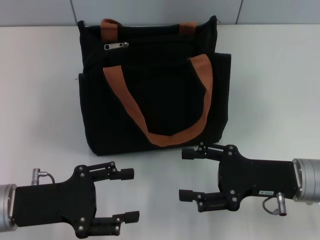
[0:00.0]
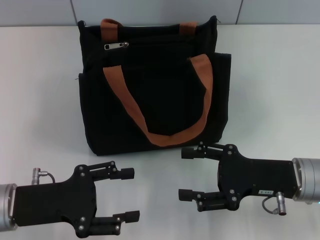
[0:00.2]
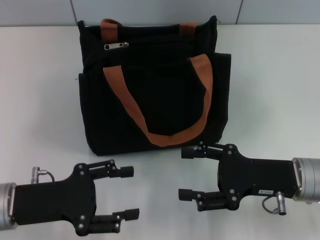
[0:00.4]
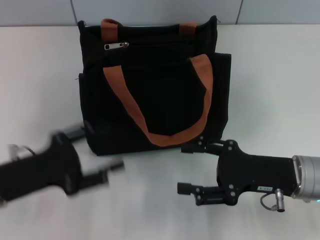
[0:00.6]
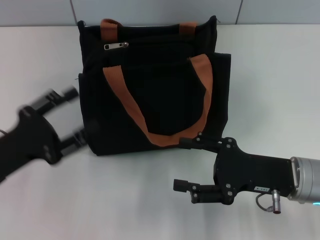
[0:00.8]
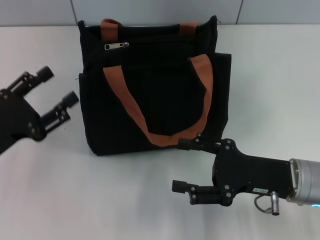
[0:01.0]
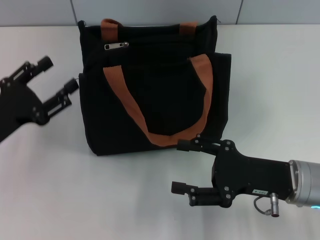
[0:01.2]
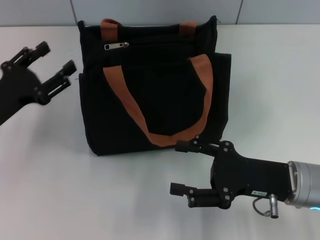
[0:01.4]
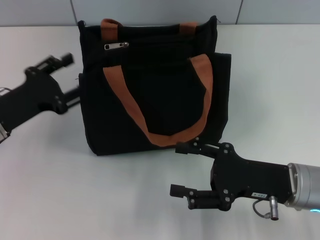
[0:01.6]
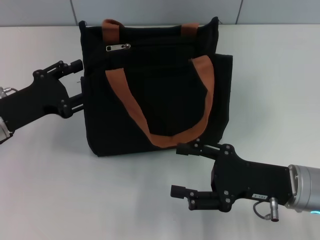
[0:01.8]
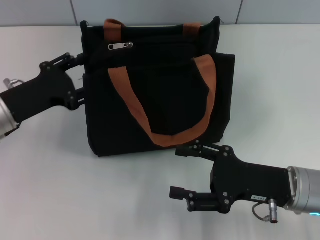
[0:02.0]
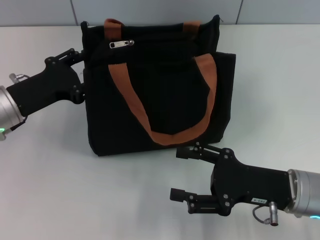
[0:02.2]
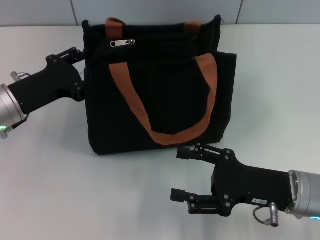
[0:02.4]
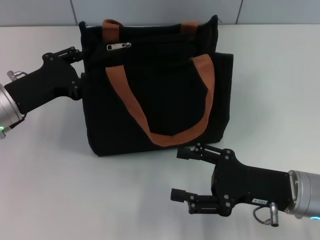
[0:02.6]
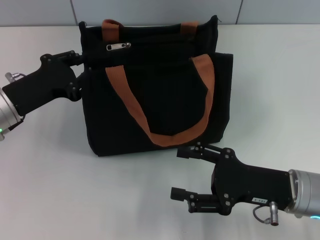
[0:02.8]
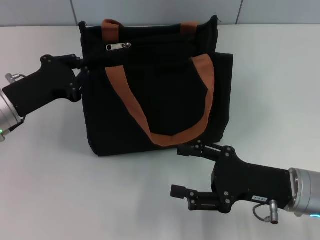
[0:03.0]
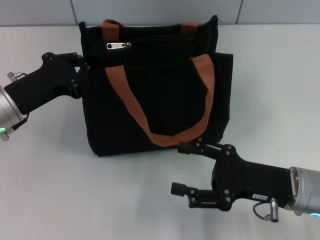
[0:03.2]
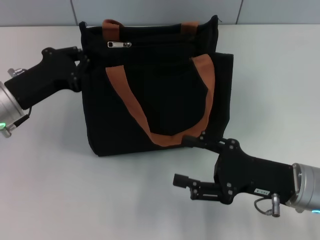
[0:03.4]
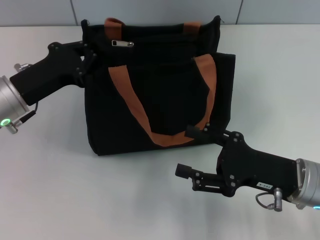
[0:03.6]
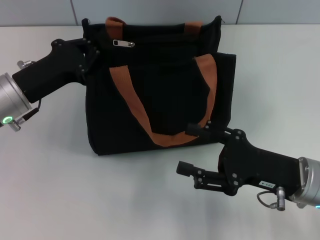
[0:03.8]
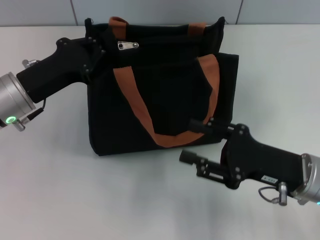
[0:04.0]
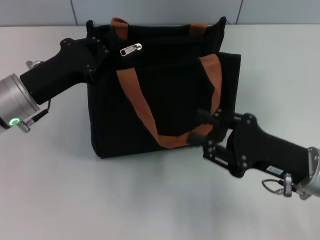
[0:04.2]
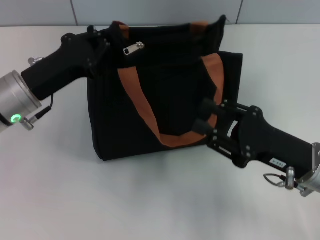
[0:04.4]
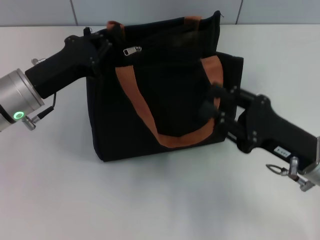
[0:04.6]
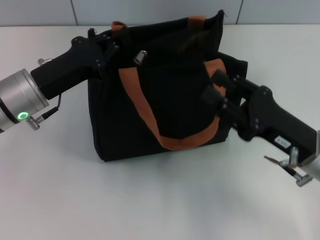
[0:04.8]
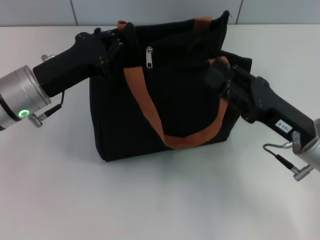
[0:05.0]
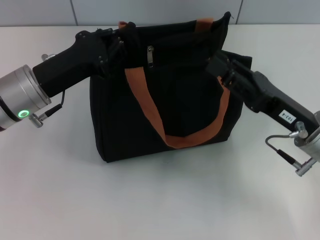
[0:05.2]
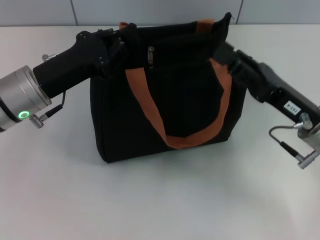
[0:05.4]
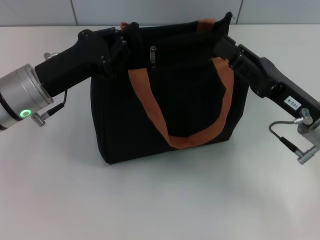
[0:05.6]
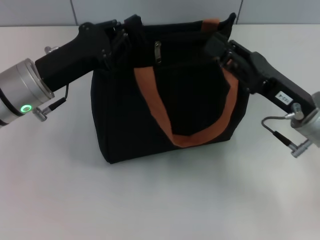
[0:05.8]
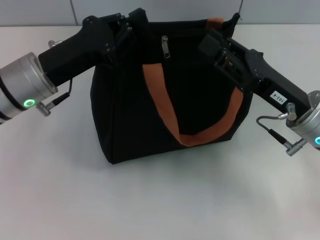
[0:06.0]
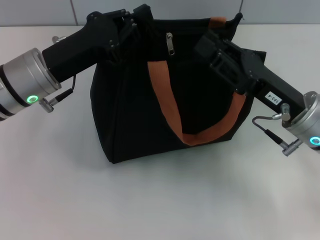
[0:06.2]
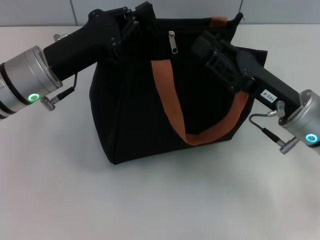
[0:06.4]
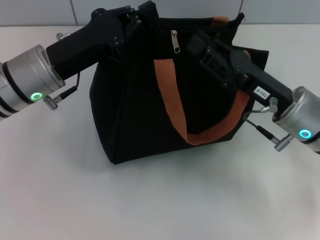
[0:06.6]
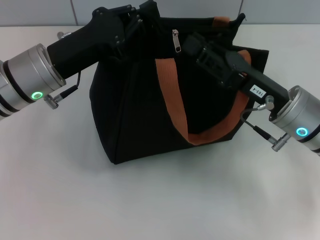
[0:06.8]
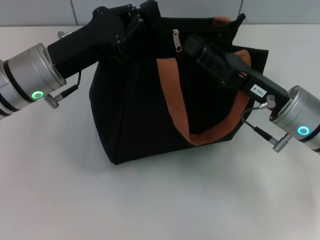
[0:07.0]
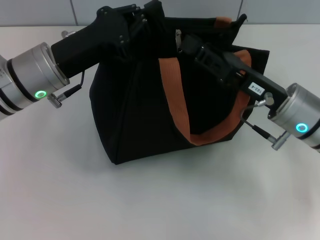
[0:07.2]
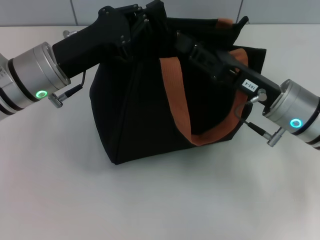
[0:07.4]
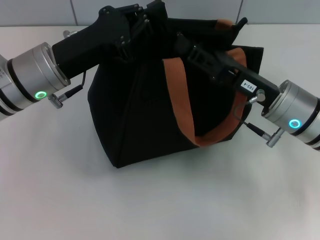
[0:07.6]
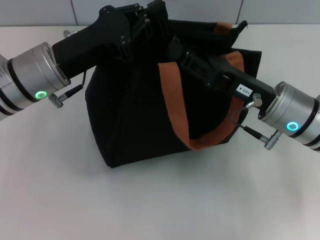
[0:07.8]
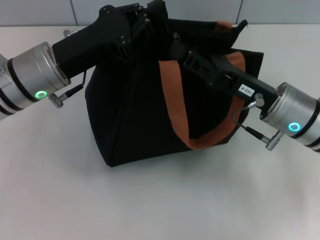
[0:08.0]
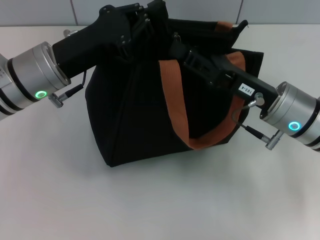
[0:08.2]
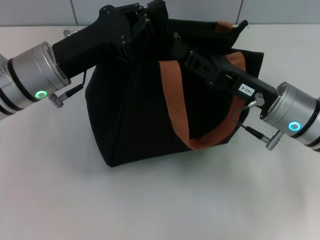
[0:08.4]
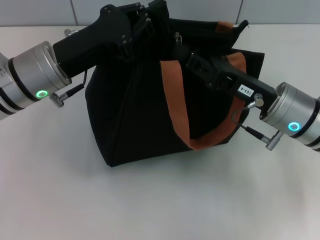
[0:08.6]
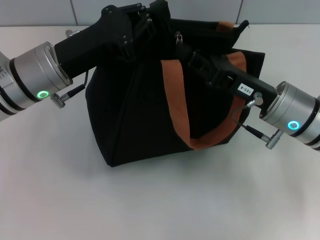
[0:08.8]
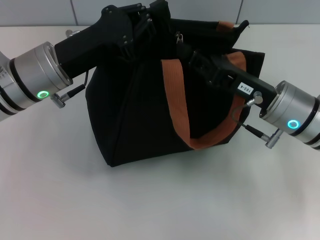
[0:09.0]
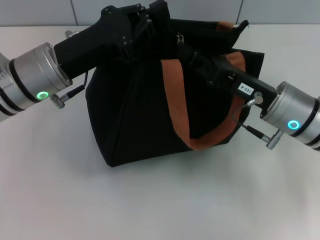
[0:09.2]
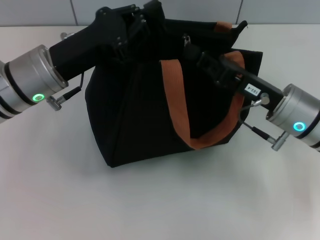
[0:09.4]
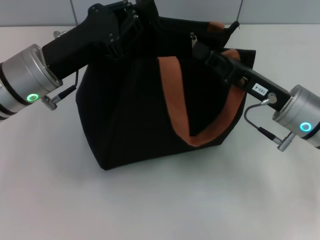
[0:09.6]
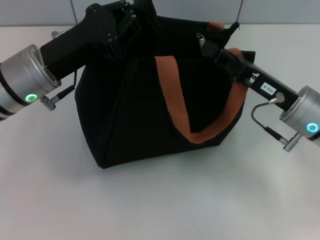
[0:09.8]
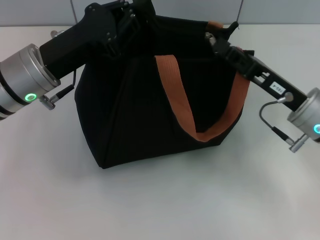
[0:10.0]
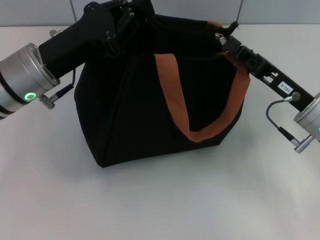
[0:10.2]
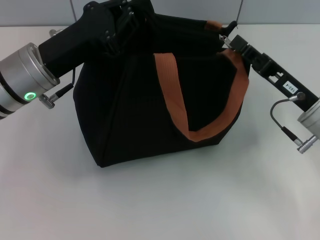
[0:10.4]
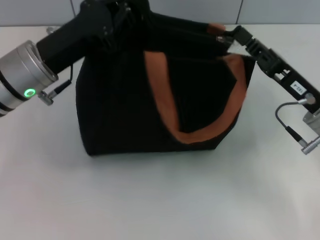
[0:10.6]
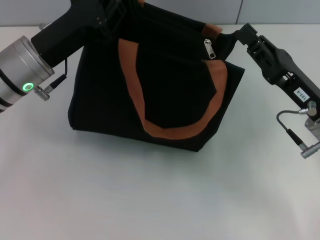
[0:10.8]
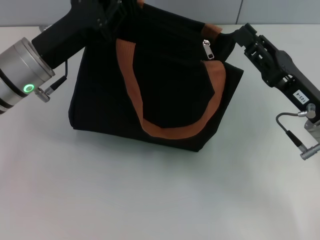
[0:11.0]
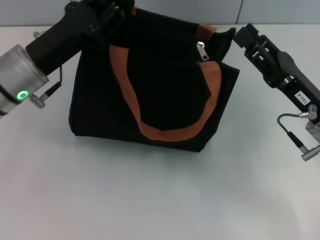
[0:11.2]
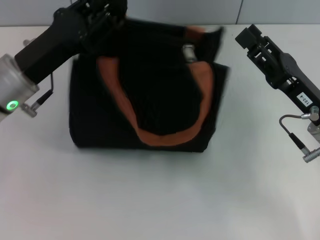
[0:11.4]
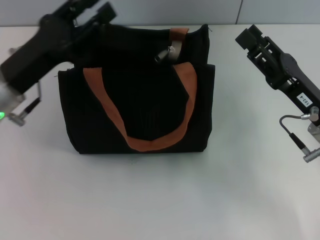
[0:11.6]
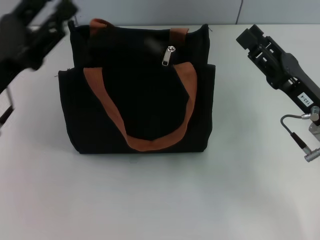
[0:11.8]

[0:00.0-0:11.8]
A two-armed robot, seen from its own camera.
Step, 0:00.0 to 0:10.4: Pull up the zipper with your right hand.
Step, 0:10.6 to 0:11.8: Grab the zipper with your left hand.
0:00.0 to 0:01.4: The left gripper travels forward by about 5 cm.
0:01.4 to 0:03.0: The left gripper closes up.
0:03.0 to 0:04.4: The right gripper closes up.
0:04.4 to 0:06.0: The right gripper ends up about 5 cm from where it was.
0:06.0 to 0:07.4: The grippers stay close to where they were, moving slightly.
0:07.4 to 0:08.8: The right gripper closes.
0:08.8 to 0:10.4: The right gripper travels to the right by roughly 5 cm.
0:10.4 to 0:11.8: The right gripper opens up. The left gripper shifts roughly 10 cm to the left and backward, and opens.

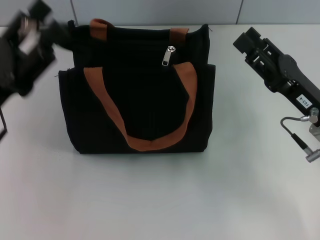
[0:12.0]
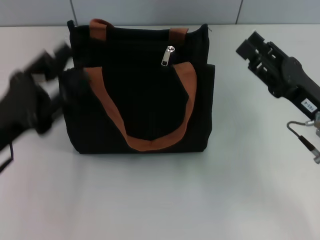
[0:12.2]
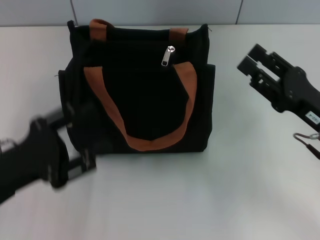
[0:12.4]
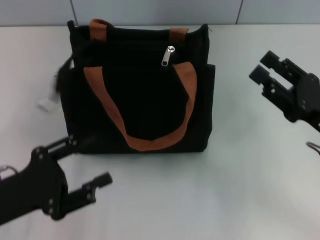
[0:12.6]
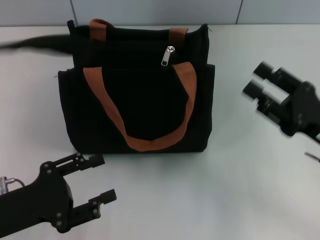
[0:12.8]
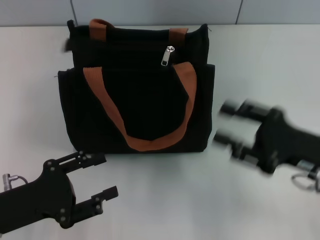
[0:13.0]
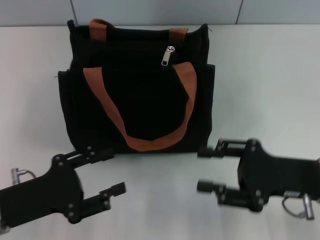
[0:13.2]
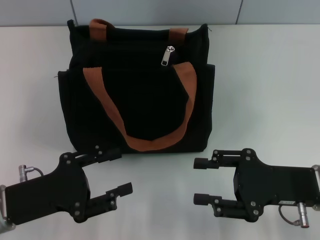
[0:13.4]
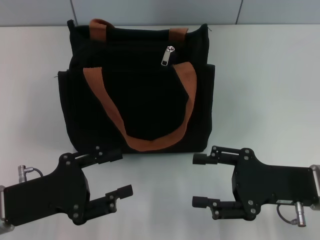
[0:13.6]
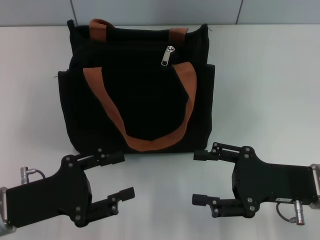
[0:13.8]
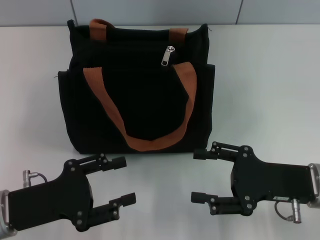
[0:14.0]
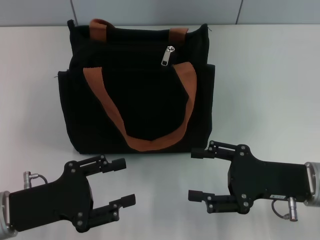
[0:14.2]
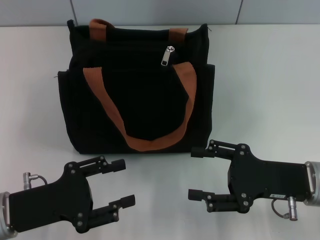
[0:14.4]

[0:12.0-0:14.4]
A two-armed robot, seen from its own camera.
0:12.0 to 0:13.2: The left gripper is displaced downward and backward by roughly 10 cm.
0:13.2 to 0:14.4: The grippers move only a little.

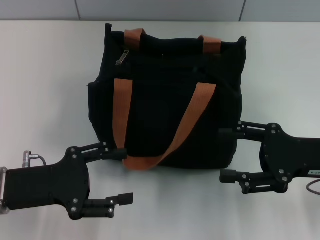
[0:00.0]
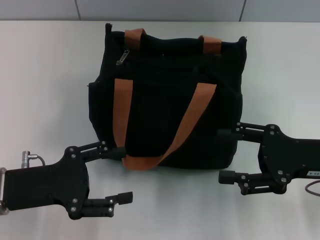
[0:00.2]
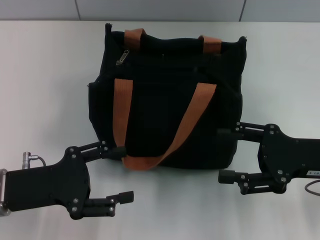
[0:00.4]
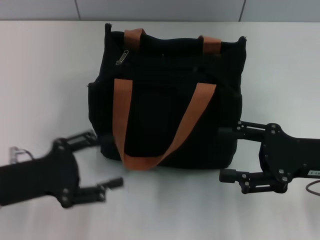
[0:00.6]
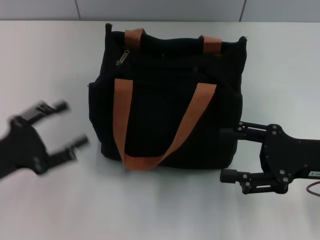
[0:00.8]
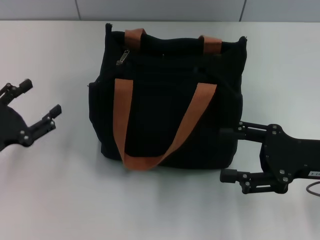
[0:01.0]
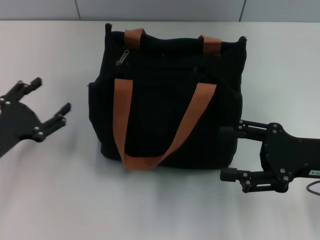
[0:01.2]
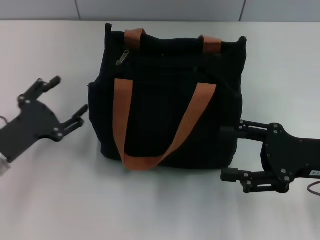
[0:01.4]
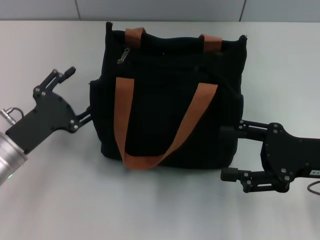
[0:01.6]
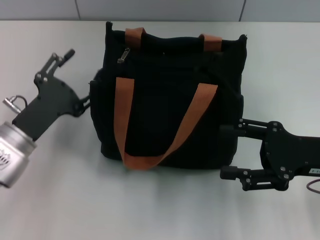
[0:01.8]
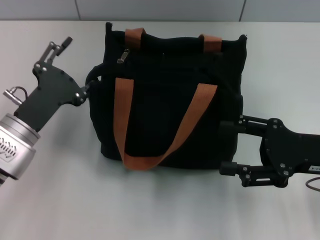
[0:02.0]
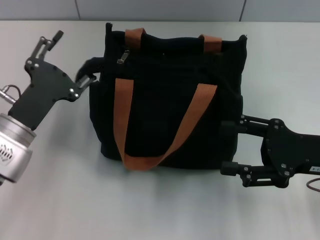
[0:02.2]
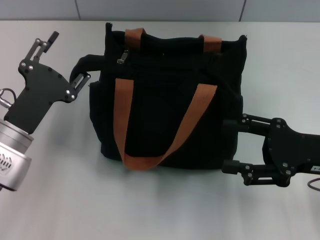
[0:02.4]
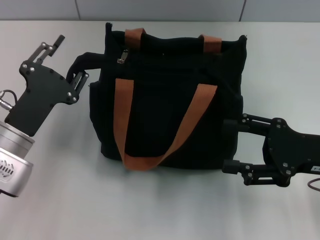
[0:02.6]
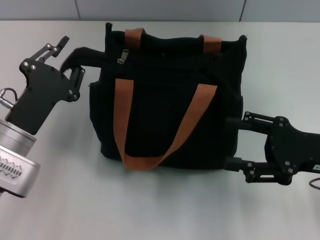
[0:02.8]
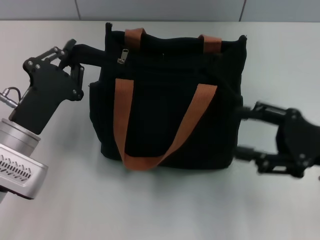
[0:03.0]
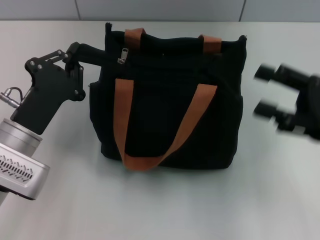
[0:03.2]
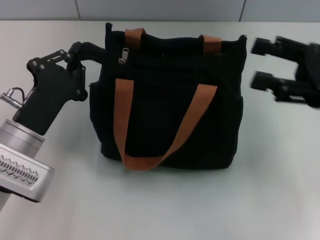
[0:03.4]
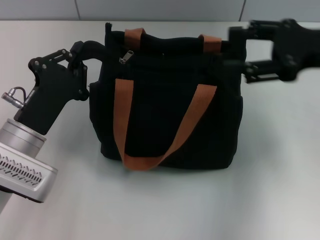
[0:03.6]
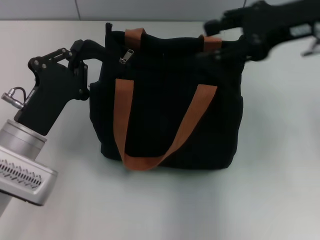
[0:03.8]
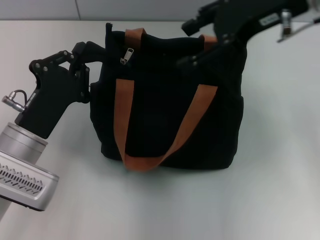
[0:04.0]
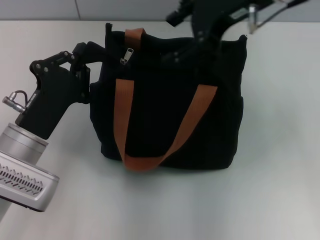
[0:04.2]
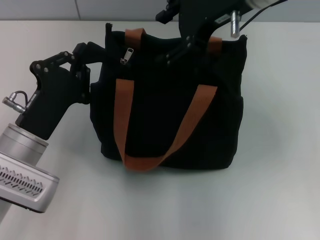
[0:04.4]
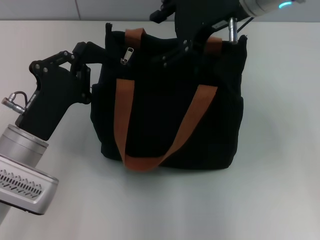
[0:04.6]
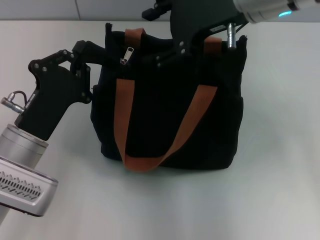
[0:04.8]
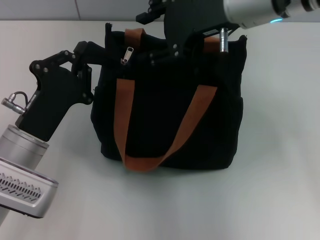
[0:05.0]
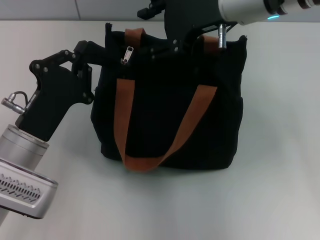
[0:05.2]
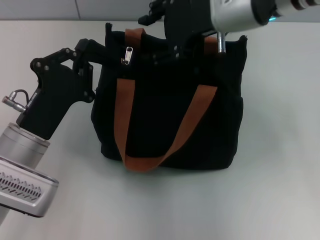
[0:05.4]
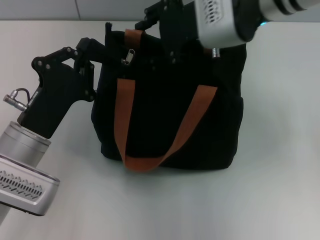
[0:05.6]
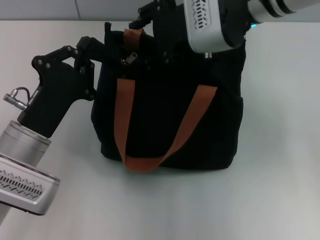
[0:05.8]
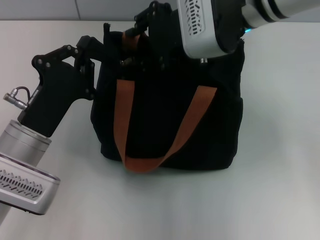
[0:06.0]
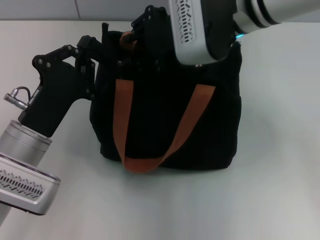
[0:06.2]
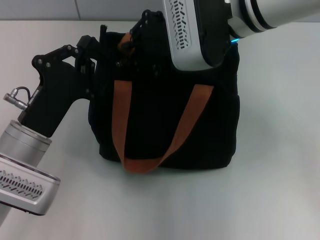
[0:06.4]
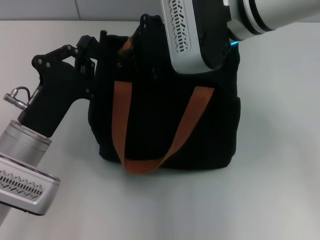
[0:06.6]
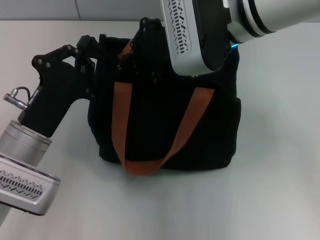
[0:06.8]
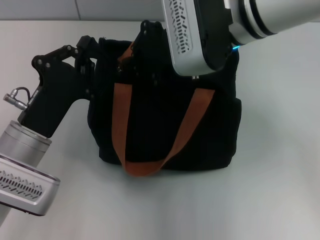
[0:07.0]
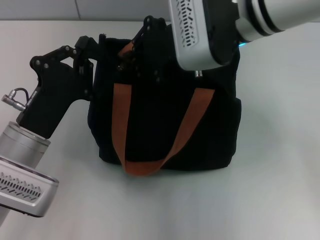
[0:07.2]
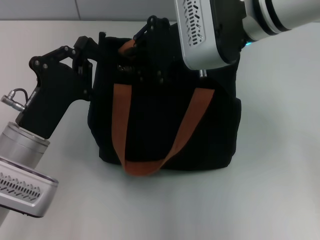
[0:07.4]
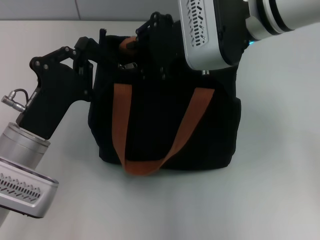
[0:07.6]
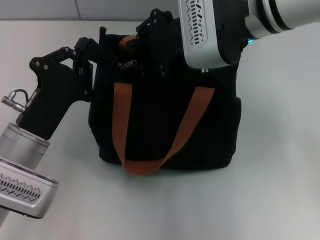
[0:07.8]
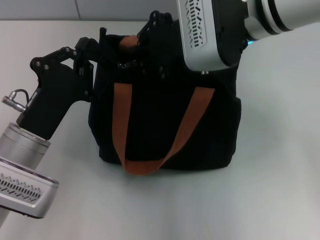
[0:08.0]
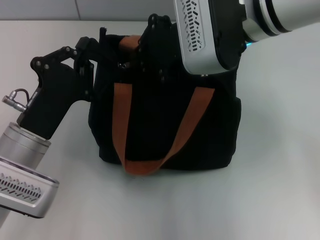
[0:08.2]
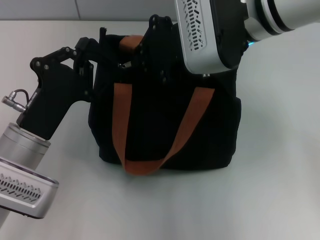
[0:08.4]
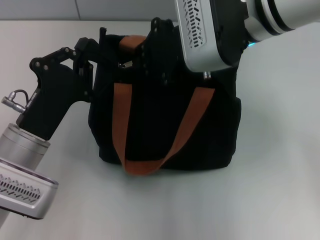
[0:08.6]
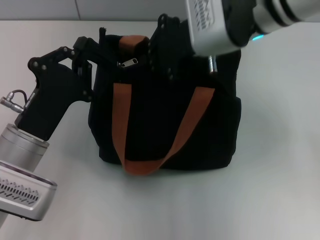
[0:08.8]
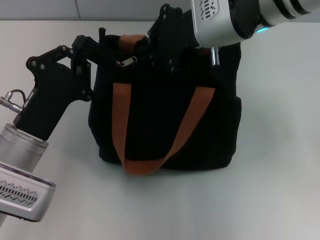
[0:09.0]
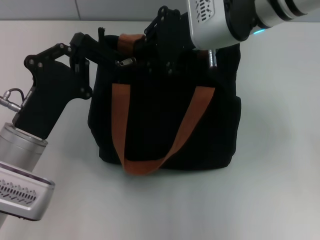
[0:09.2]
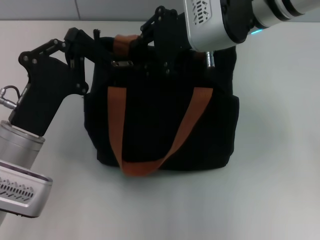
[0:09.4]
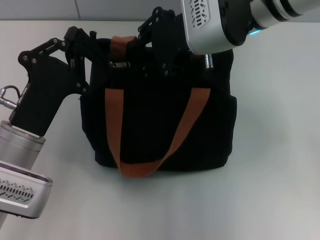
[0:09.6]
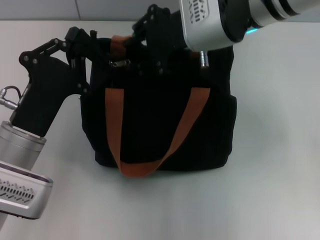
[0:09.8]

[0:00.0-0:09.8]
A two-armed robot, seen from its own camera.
0:00.0 to 0:01.4: The left gripper changes place by about 5 cm.
0:01.4 to 0:02.8: The left gripper is displaced to the right by about 5 cm, and closes its fingers.
0:02.8 to 0:04.2: The left gripper closes up, while the right gripper goes approximately 30 cm upward, to the left and forward.
0:04.2 to 0:05.6: The right gripper ends up some 5 cm from where it was.
0:05.6 to 0:07.0: The right gripper closes its fingers.
0:07.0 to 0:08.4: The right gripper opens, then closes again.
0:08.4 to 0:09.8: The right gripper opens.
